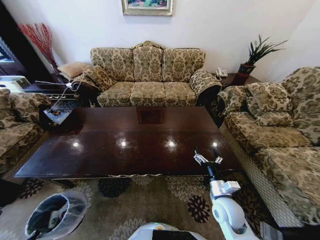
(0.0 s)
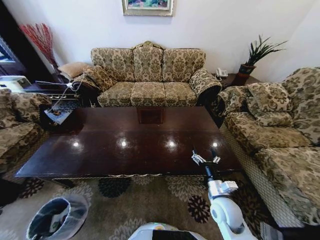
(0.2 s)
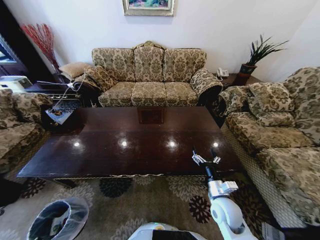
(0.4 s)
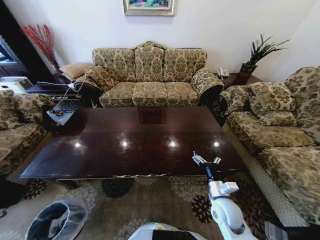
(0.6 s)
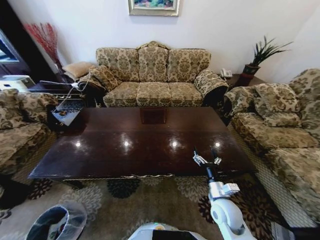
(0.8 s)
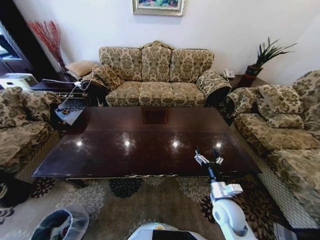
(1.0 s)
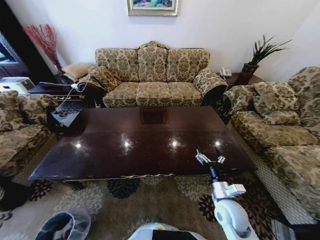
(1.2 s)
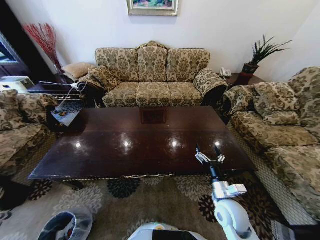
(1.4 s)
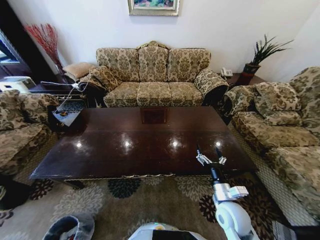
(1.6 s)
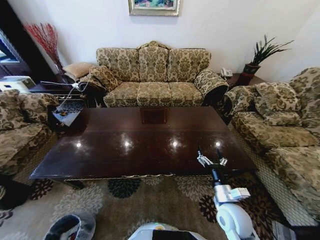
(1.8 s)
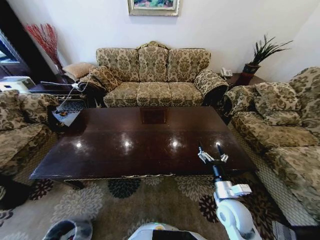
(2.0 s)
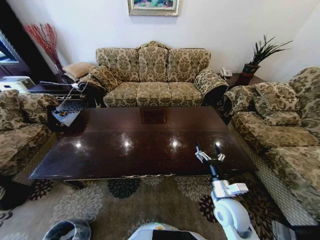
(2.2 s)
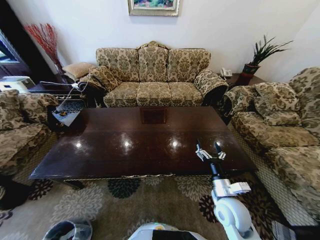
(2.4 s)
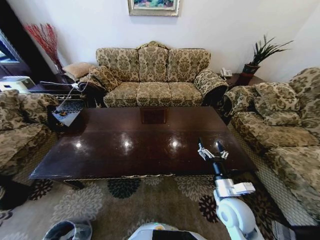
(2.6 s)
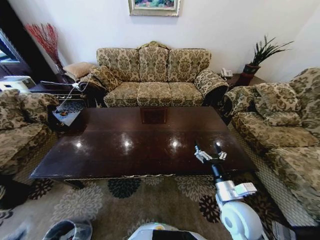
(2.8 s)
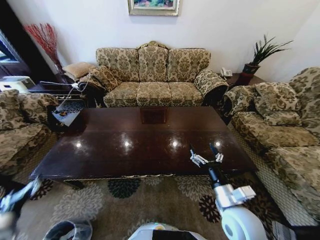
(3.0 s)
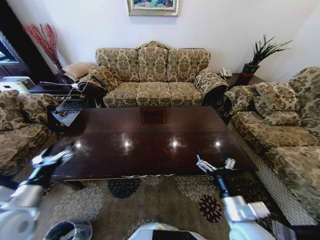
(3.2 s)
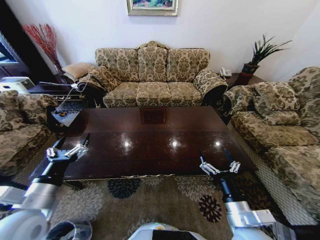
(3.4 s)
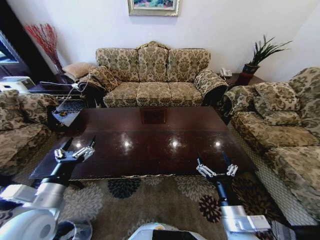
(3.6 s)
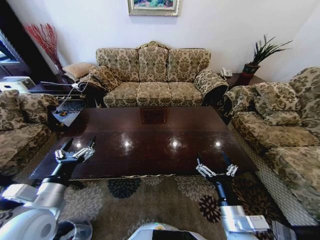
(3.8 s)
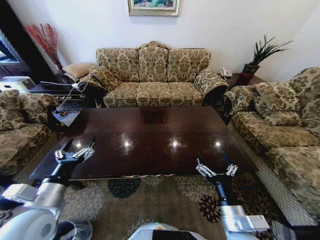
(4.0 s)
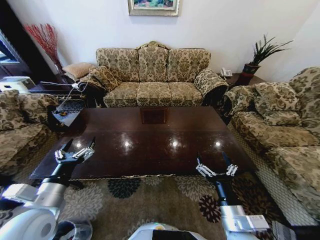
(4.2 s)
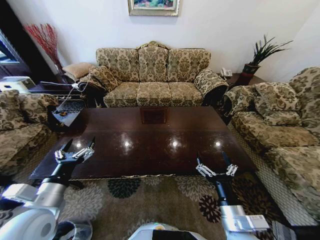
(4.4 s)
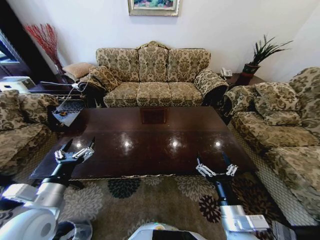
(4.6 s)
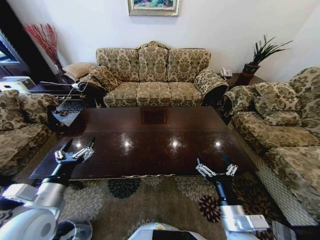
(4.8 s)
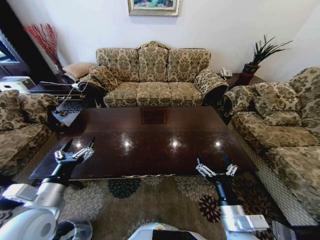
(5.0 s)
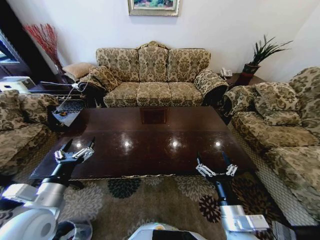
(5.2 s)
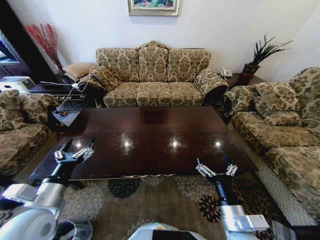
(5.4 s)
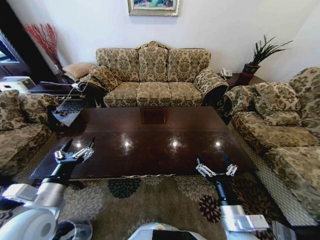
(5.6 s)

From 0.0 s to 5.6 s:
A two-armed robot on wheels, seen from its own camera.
Task of the whole recording: Move to the front of the table and place the trash on the table into the trash bin.
From 0.0 s to 1.4 s: The left gripper moves downward, about 10 cm.
From 1.4 s to 2.8 s: The right gripper changes place by about 5 cm. The left gripper is displaced upward by roughly 15 cm, and opens its fingers.
From 2.8 s to 4.2 s: The right gripper goes approximately 10 cm backward. The left gripper travels upward, to the right and forward by roughly 40 cm.
From 4.2 s to 5.6 s: The two grippers keep their place.

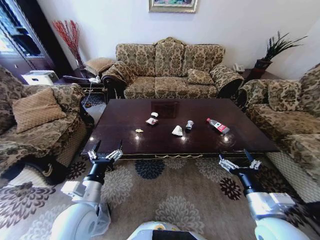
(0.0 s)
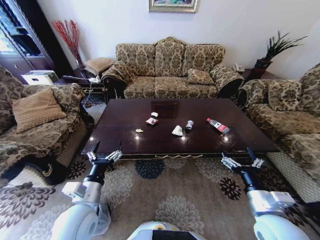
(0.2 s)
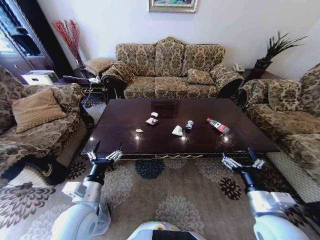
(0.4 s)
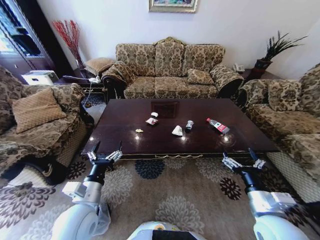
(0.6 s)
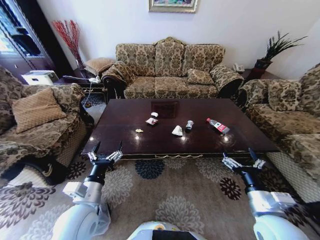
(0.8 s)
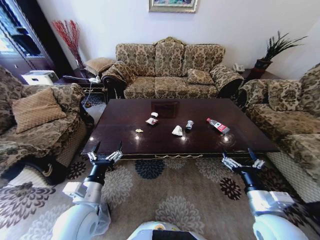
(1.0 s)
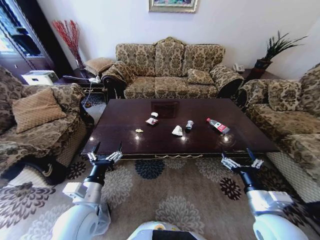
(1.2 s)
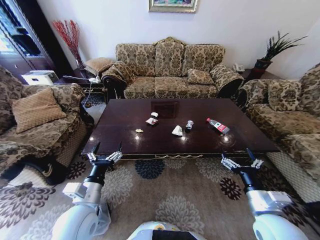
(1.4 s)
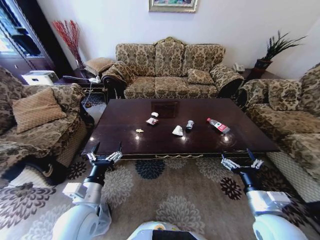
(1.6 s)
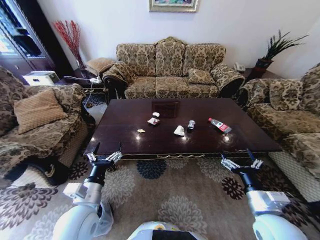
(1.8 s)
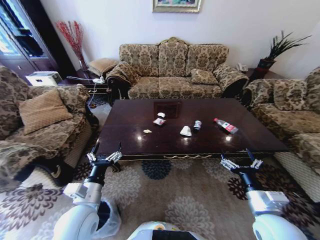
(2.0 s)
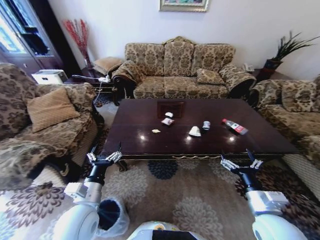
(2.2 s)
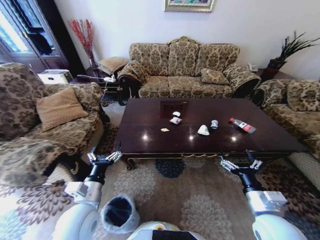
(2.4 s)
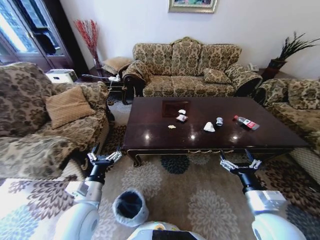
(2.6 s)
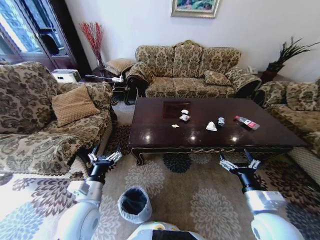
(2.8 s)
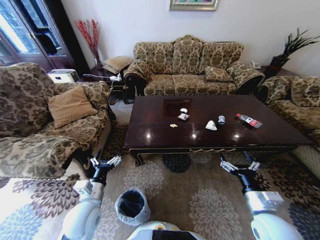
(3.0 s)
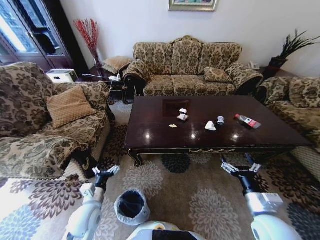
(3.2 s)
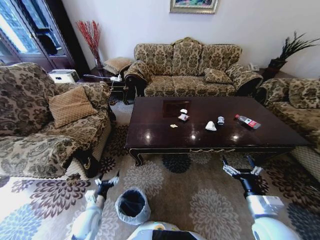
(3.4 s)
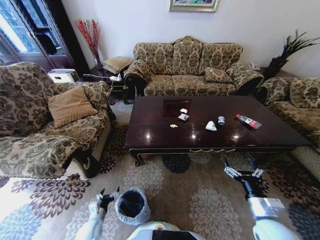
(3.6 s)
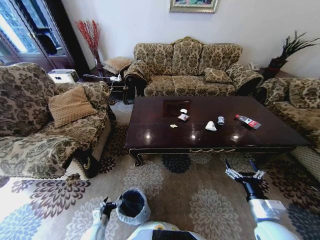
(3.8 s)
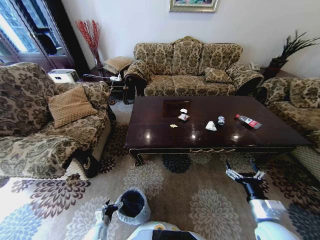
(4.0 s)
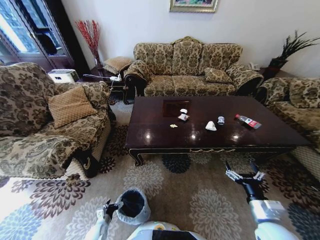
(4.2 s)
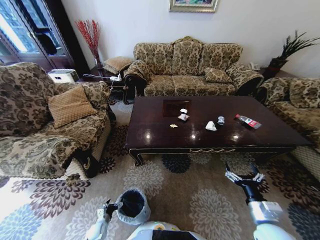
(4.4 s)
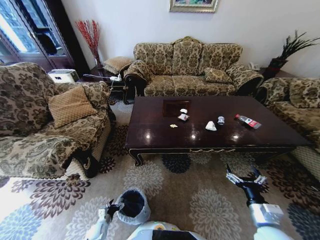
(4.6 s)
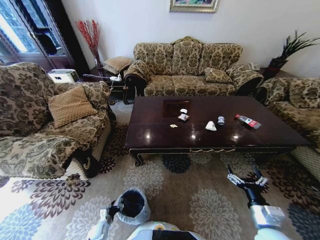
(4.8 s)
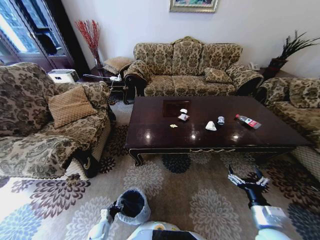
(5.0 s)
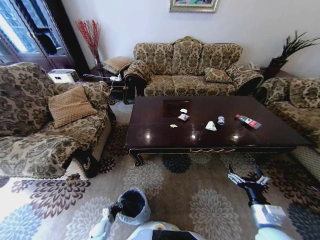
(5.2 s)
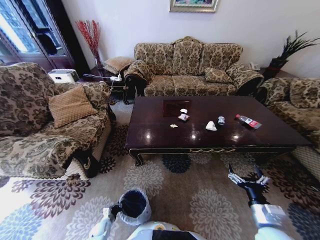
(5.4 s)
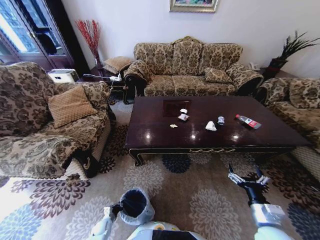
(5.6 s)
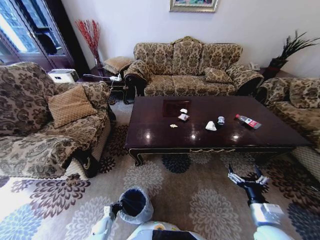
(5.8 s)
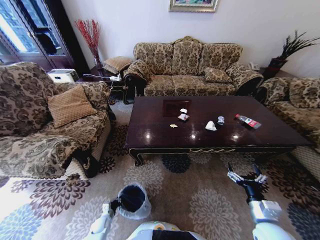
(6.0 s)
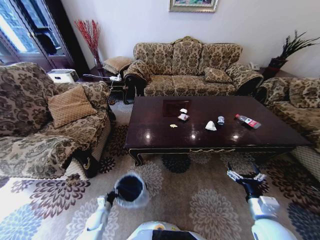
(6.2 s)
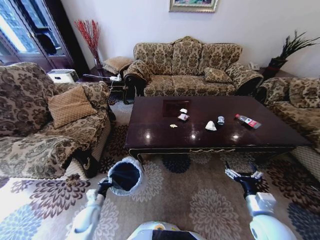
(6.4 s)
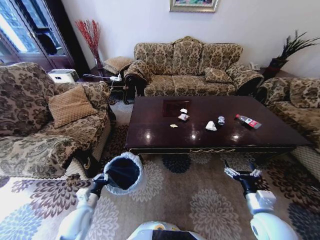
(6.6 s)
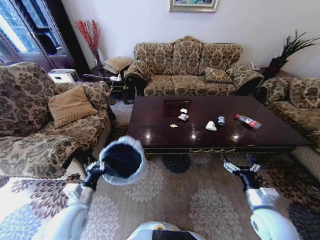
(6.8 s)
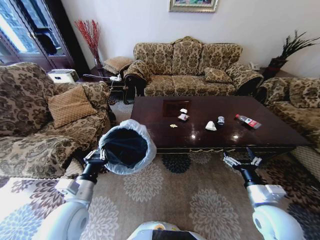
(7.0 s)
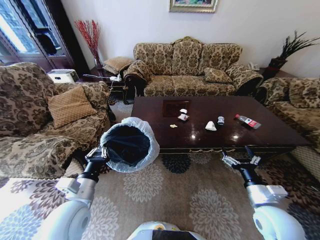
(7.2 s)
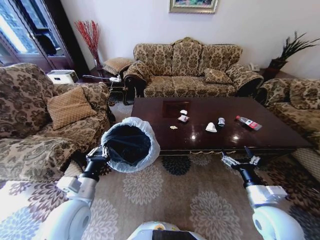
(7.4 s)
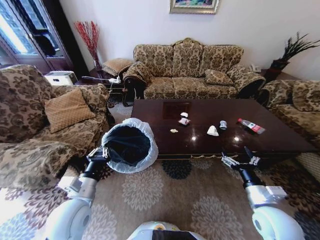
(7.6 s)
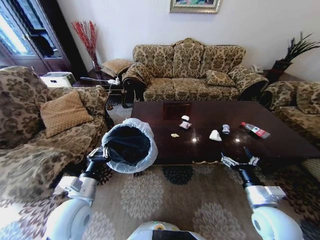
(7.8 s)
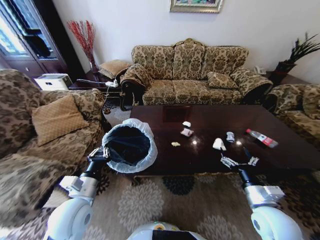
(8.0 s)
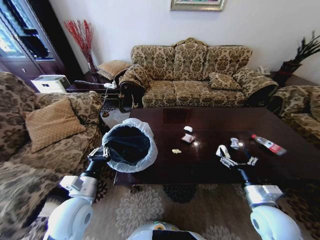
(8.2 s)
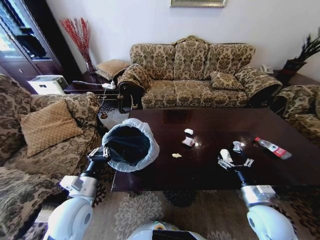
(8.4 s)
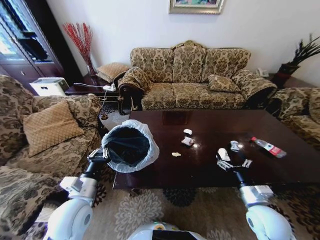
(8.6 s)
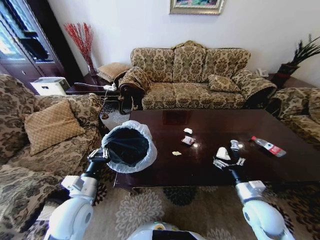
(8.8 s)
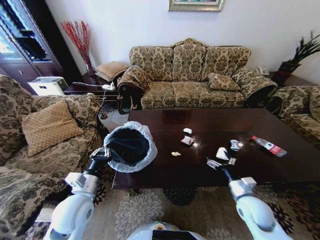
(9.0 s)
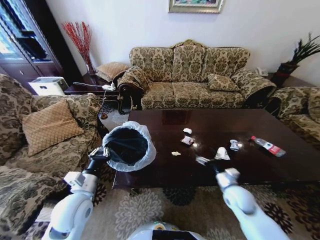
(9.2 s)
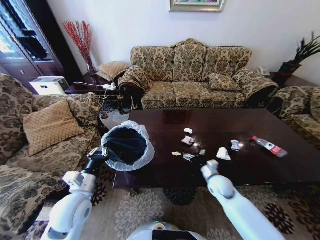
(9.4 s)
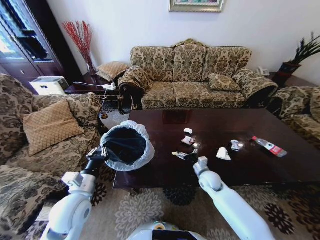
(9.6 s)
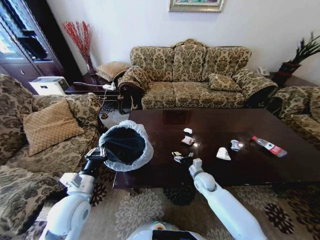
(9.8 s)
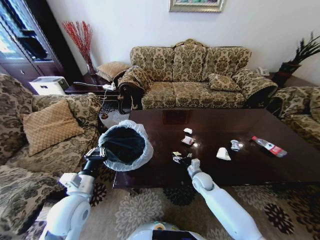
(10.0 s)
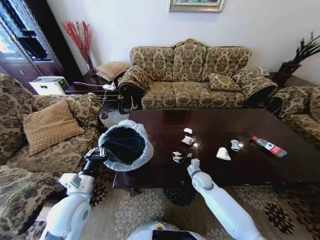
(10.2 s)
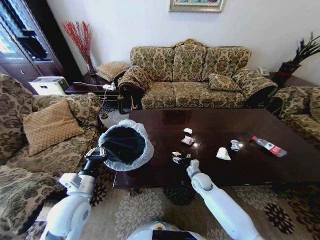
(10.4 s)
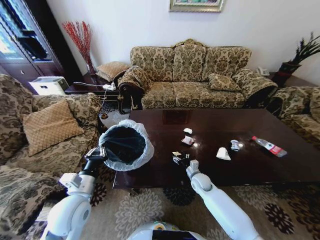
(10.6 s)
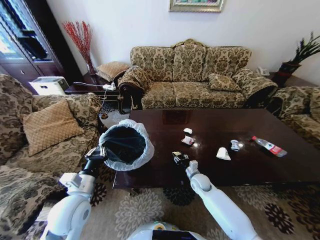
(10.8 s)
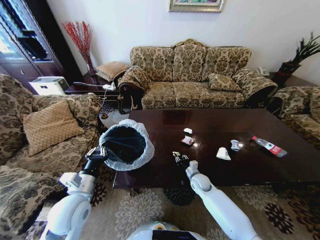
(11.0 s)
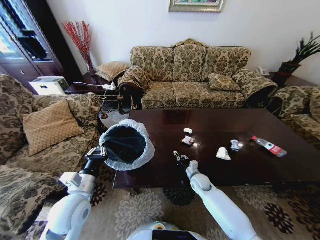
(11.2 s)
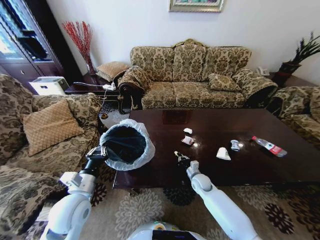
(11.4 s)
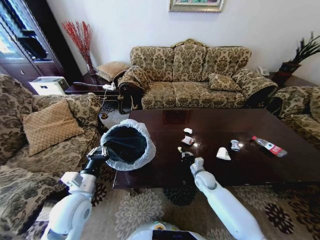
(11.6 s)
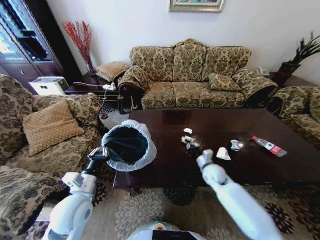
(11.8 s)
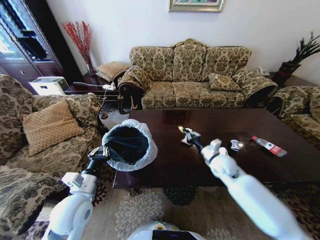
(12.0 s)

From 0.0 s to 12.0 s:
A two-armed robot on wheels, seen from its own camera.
Task of the whole recording: Move to the front of the table and place the trash on the table into the trash bin.
From 3.0 s to 4.4 s: The left gripper heads downward, covering roughly 35 cm, while the right gripper shifts by about 5 cm.
From 4.4 s to 6.0 s: The left gripper closes up.
From 6.0 s to 7.6 s: The left gripper travels upward by approximately 40 cm. The right gripper moves upward, approximately 5 cm.
From 7.6 s to 9.0 s: The right gripper is displaced downward by some 5 cm.
From 9.0 s to 10.4 s: The right gripper travels forward, to the left and downward by about 20 cm.
From 10.4 s to 12.0 s: The right gripper moves upward, some 15 cm, and closes.

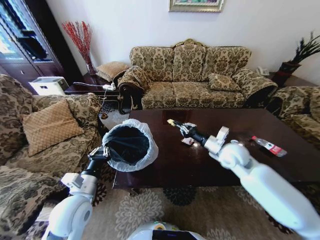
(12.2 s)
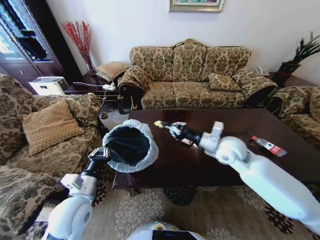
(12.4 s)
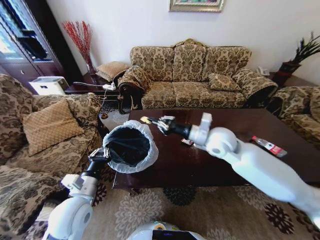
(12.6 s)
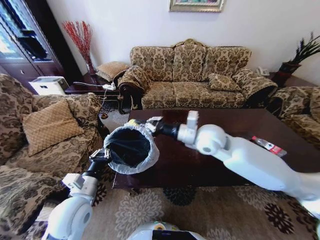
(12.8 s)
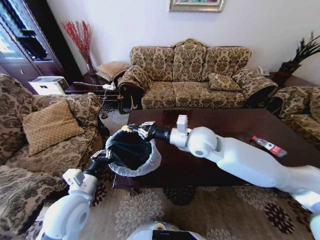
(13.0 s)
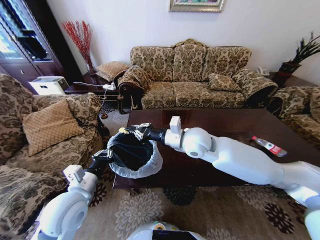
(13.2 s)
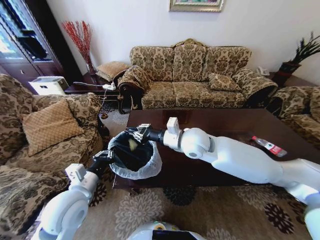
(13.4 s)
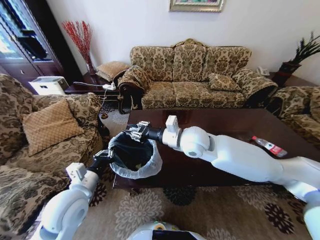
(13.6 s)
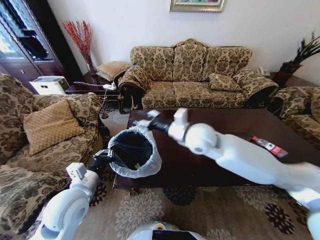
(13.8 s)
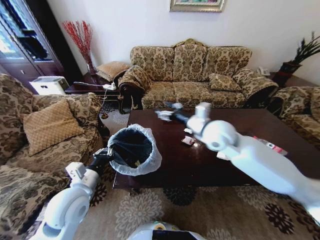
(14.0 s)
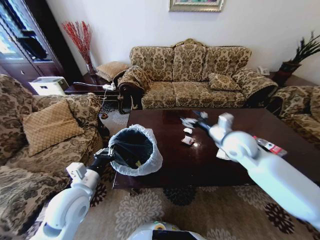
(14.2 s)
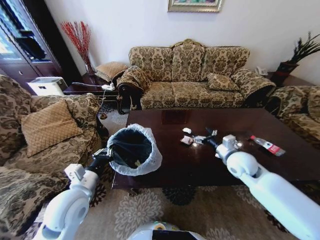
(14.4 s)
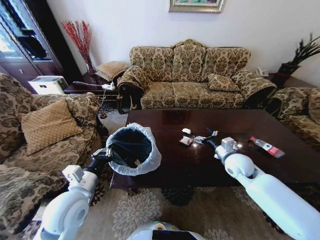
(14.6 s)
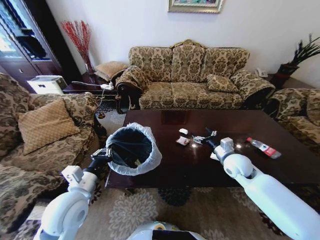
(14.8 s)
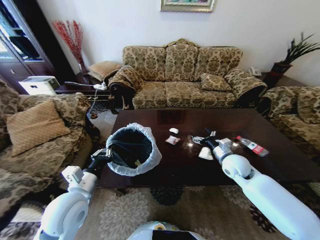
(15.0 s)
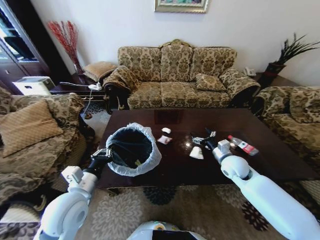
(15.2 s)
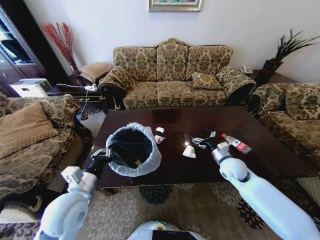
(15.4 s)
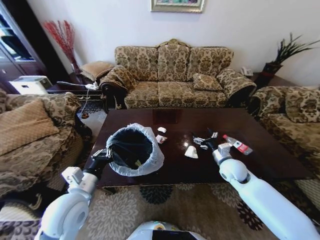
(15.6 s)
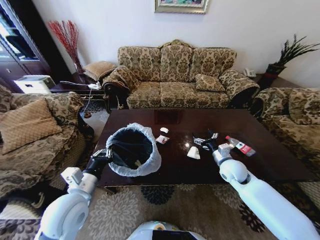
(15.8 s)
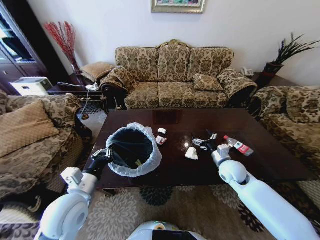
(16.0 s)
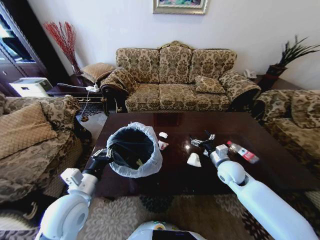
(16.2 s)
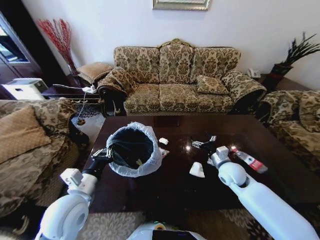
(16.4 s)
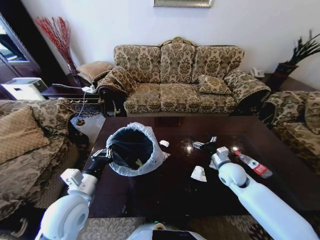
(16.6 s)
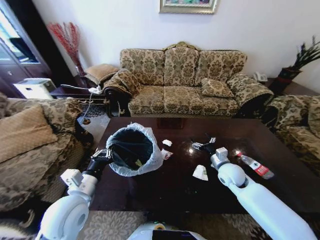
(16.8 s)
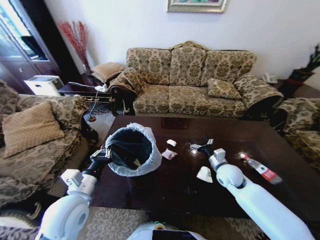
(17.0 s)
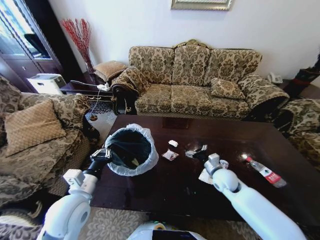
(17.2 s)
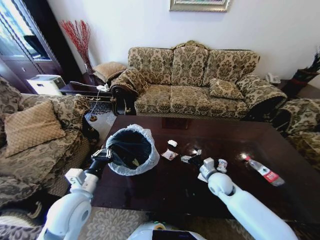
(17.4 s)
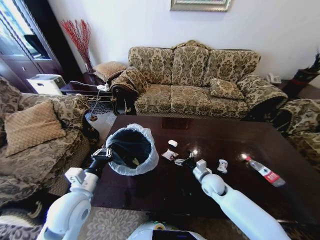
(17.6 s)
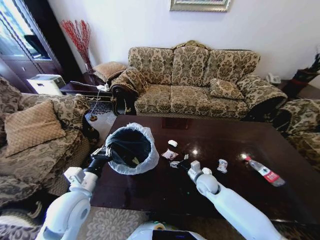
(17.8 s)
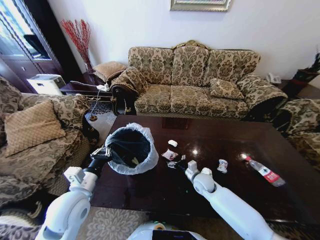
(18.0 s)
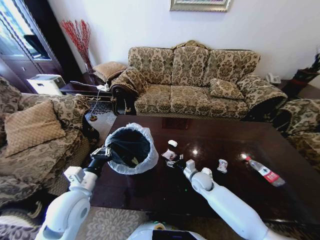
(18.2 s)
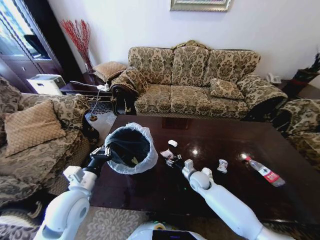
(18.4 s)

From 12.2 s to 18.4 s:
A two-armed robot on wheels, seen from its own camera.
Task of the whole recording: Move to the front of the table and place the trash on the table into the trash bin.
From 12.2 s to 13.8 s: The right gripper travels to the left and upward by about 20 cm, and opens.
From 13.8 s to 15.4 s: The right gripper moves to the right and downward, some 25 cm, and opens its fingers.
From 16.8 s to 18.4 s: The right gripper heads downward and to the left, covering roughly 15 cm.
